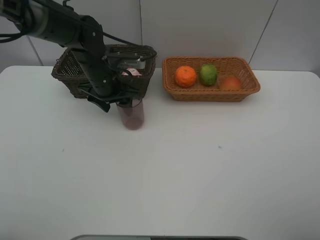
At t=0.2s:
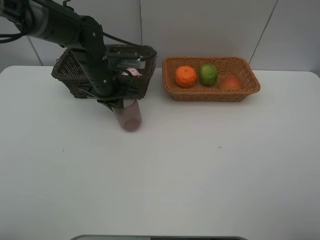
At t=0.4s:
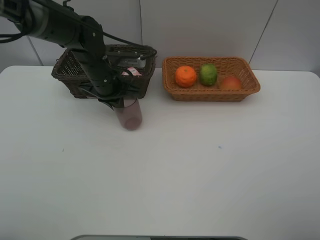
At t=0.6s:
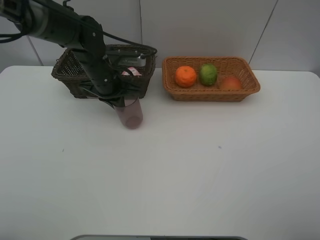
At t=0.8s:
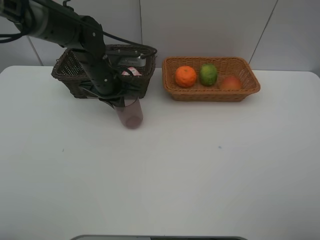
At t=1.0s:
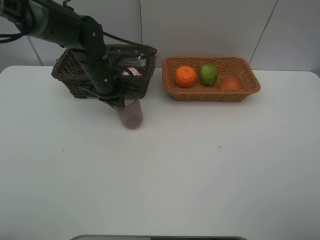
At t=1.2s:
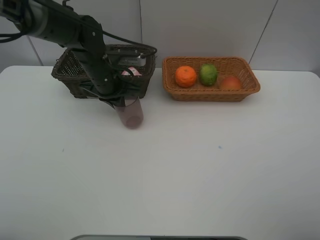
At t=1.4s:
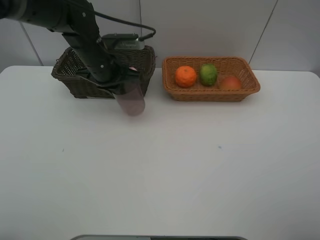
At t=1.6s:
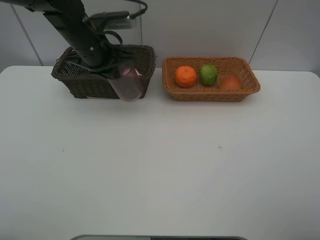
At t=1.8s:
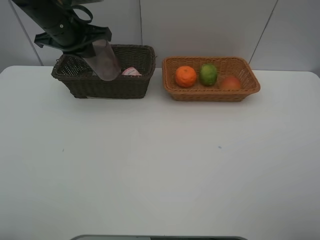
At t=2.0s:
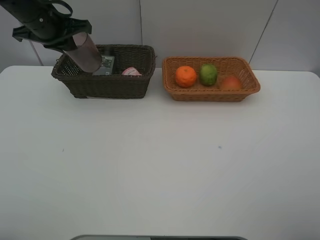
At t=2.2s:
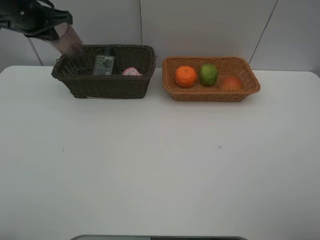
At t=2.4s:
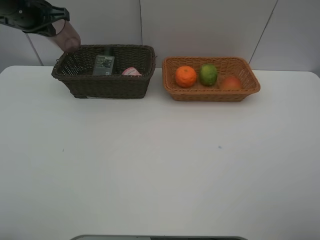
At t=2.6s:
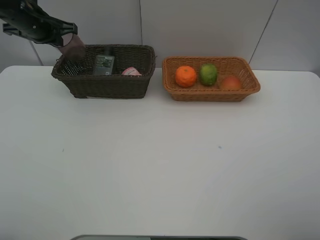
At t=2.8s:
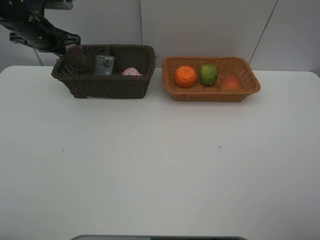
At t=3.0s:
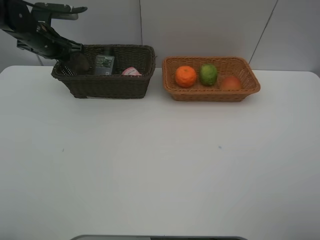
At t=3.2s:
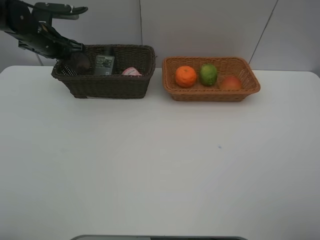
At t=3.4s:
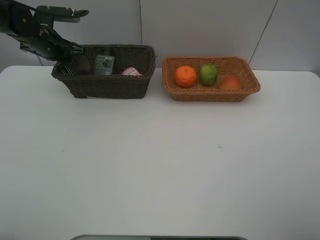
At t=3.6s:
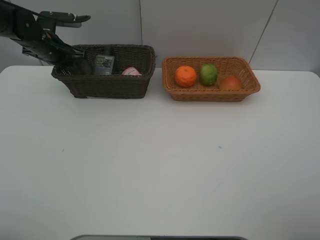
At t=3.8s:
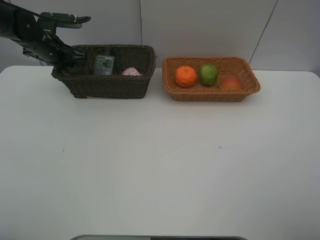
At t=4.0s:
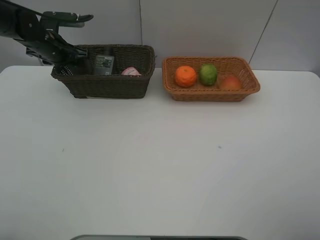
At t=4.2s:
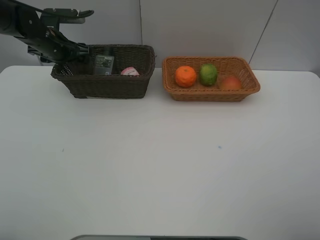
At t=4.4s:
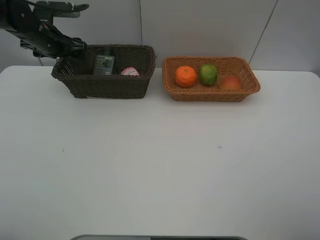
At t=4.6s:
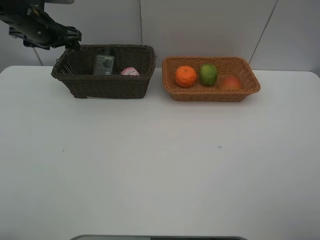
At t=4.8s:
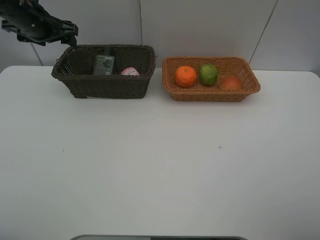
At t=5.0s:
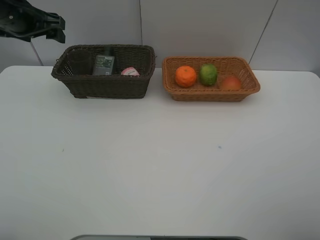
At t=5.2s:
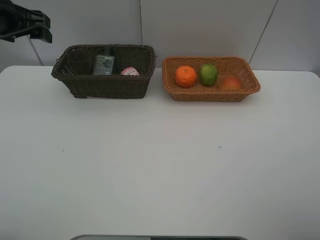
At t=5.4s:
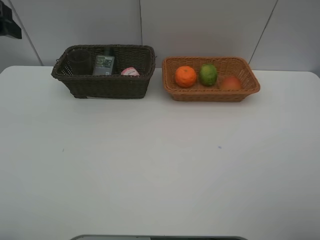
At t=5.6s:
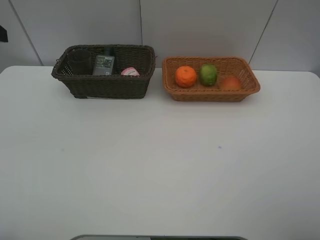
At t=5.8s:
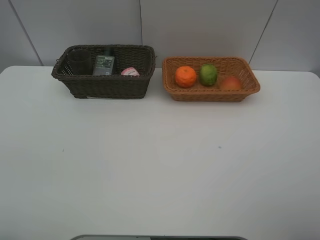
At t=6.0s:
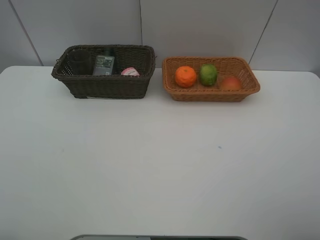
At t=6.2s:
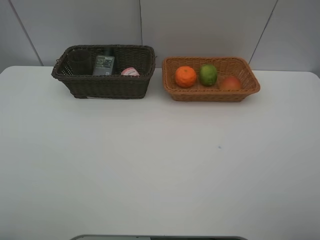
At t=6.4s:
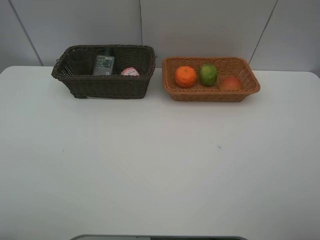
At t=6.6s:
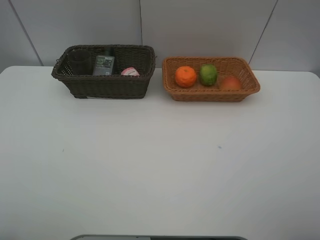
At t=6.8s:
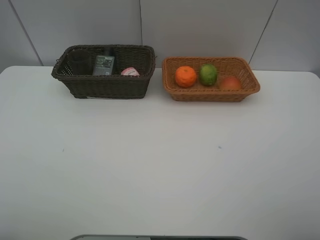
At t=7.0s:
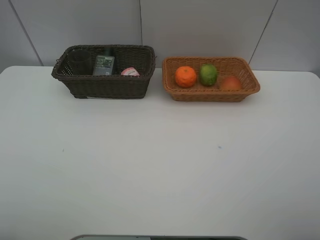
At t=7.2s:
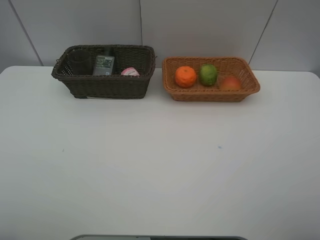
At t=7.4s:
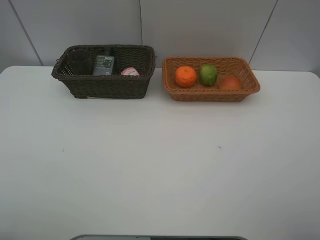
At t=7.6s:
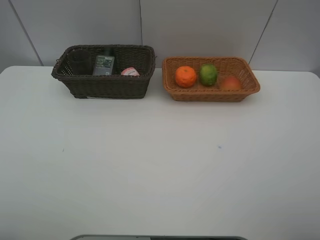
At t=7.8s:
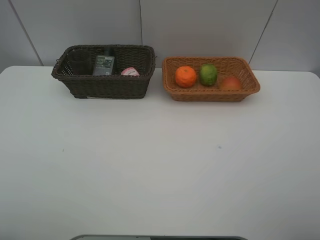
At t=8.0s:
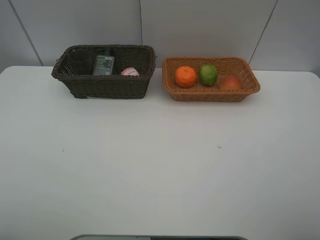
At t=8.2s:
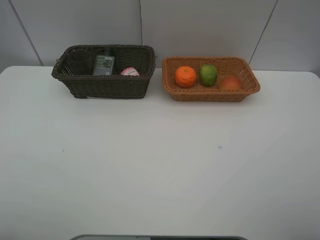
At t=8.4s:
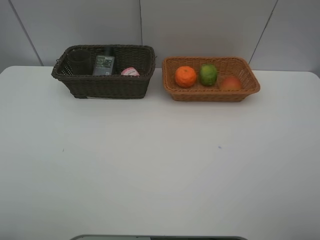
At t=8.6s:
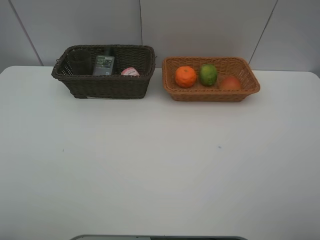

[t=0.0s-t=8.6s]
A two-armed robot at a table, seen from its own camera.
Task of the whole recording: place multiple objects separately in different baskets.
t=0.0s to t=1.4s: The left gripper closes up.
t=1.4s to t=2.8s: The left gripper goes roughly 15 cm to the left and forward.
t=2.8s to t=4.4s: The left gripper opens up.
t=4.4s to t=5.8s: The left gripper is displaced backward and upward by some 35 cm.
t=7.2s to t=8.6s: Both grippers stay about where they are.
